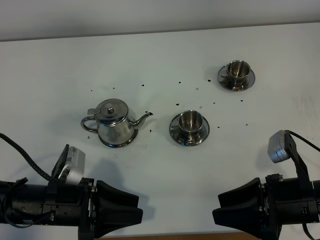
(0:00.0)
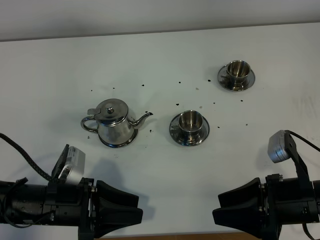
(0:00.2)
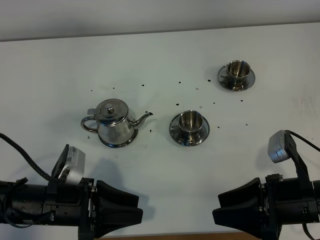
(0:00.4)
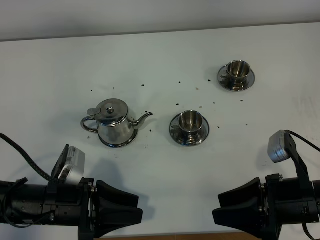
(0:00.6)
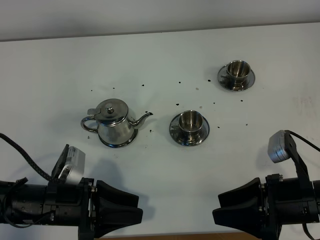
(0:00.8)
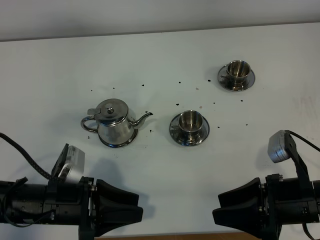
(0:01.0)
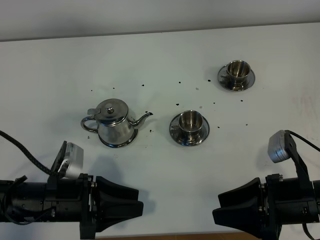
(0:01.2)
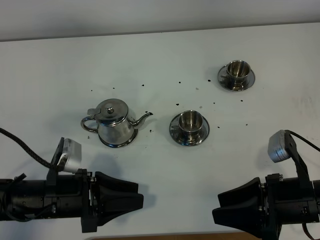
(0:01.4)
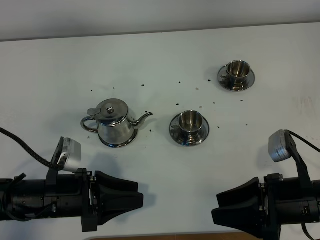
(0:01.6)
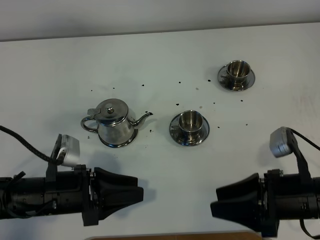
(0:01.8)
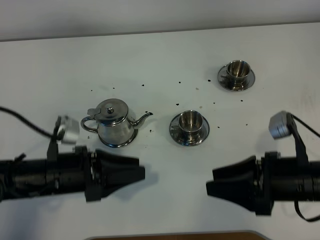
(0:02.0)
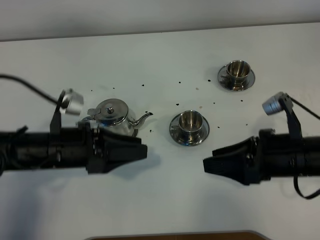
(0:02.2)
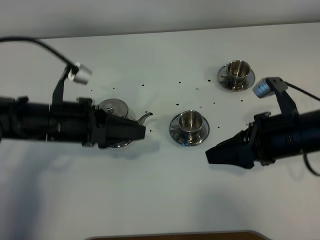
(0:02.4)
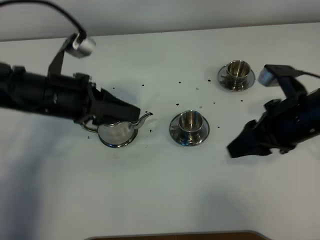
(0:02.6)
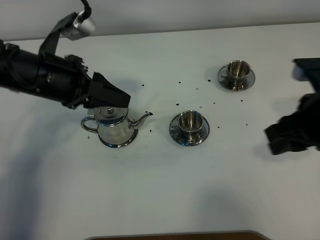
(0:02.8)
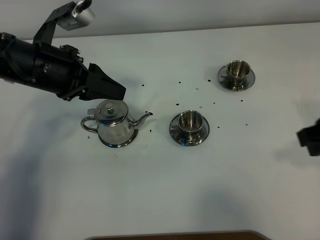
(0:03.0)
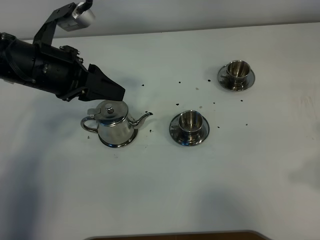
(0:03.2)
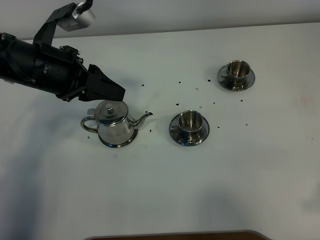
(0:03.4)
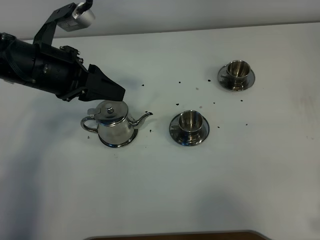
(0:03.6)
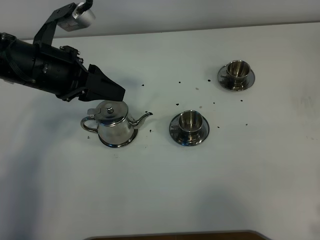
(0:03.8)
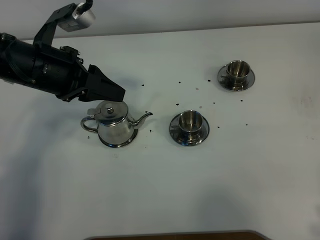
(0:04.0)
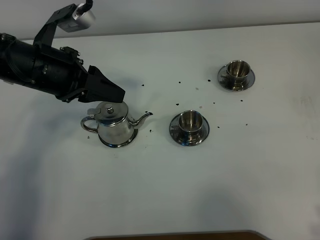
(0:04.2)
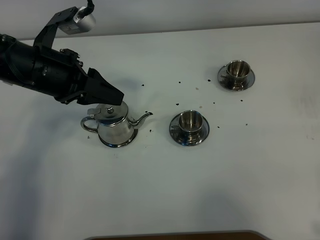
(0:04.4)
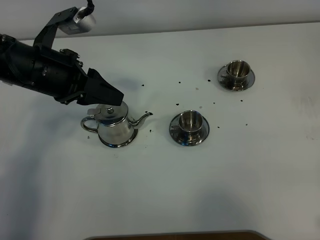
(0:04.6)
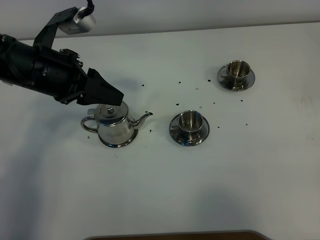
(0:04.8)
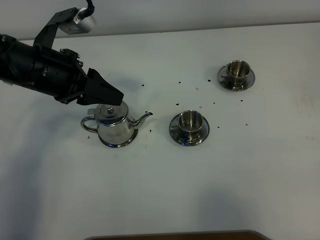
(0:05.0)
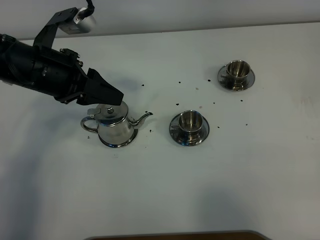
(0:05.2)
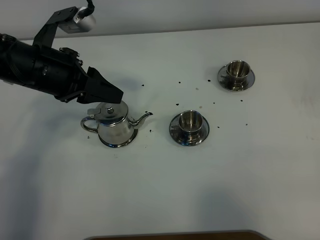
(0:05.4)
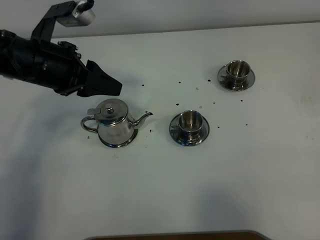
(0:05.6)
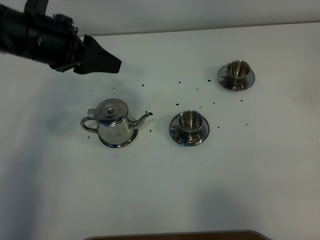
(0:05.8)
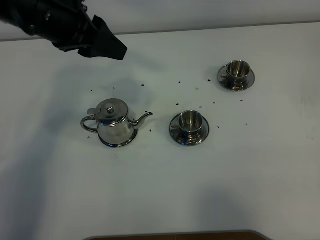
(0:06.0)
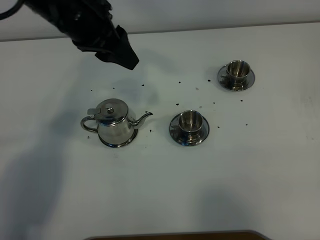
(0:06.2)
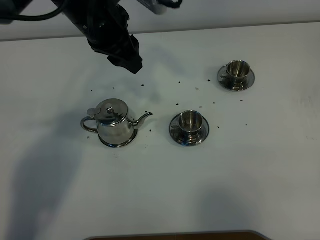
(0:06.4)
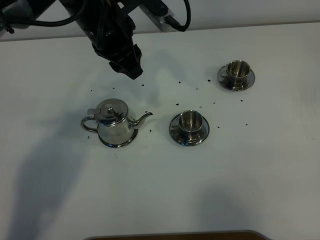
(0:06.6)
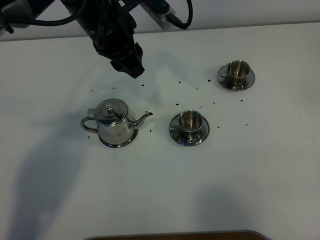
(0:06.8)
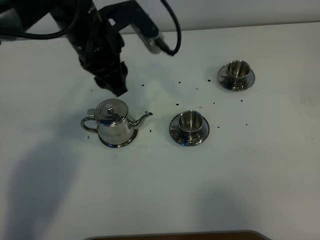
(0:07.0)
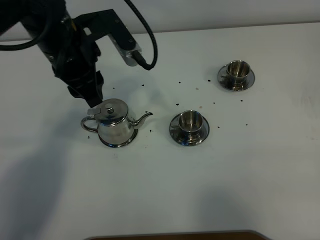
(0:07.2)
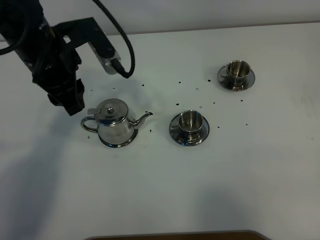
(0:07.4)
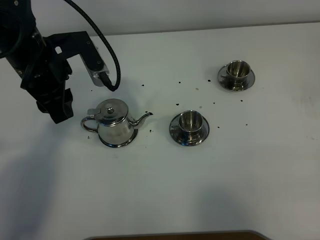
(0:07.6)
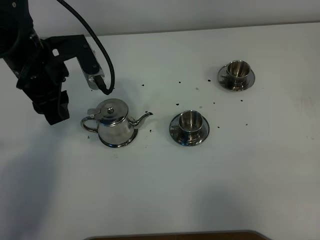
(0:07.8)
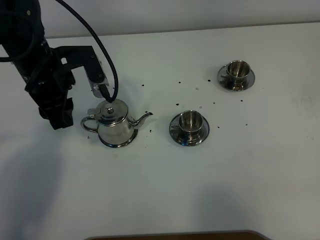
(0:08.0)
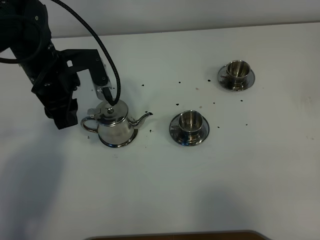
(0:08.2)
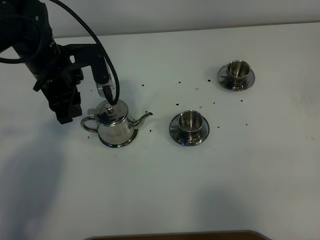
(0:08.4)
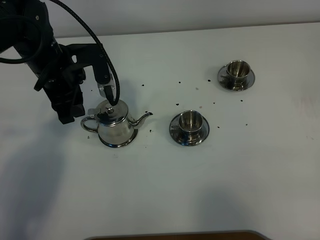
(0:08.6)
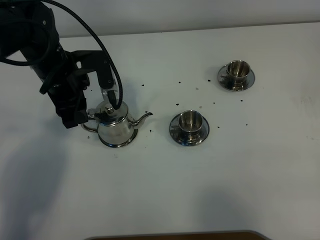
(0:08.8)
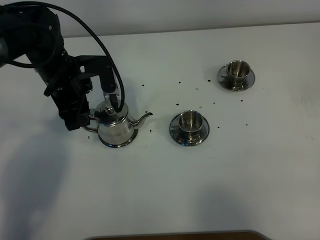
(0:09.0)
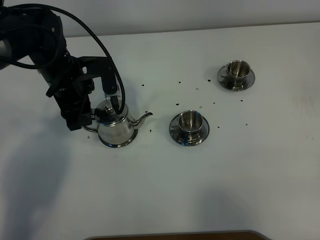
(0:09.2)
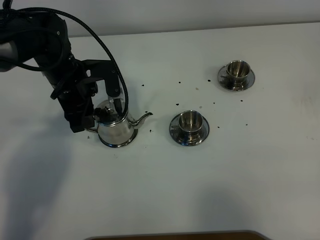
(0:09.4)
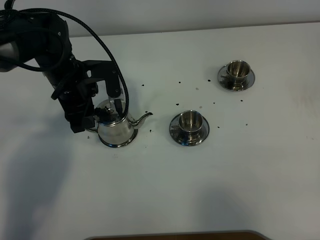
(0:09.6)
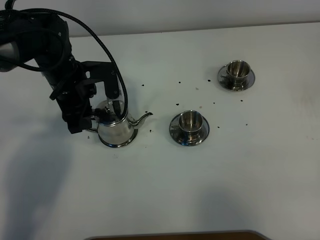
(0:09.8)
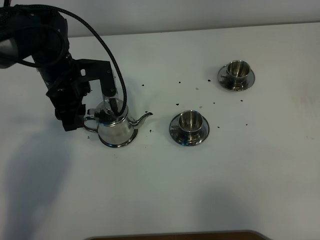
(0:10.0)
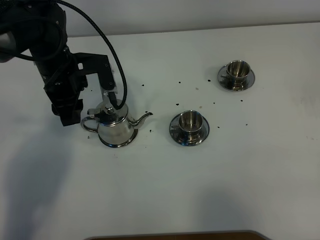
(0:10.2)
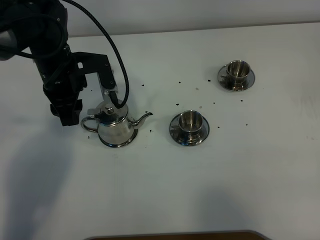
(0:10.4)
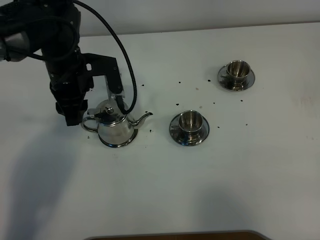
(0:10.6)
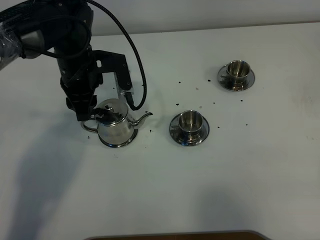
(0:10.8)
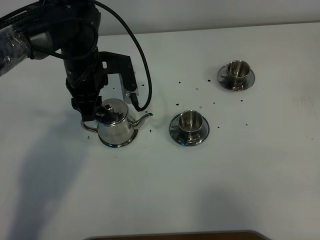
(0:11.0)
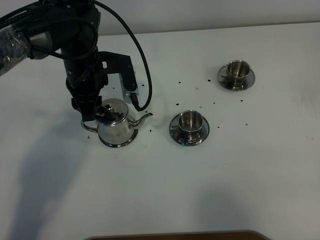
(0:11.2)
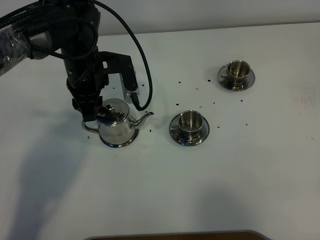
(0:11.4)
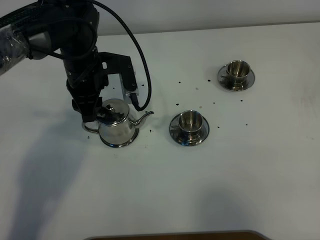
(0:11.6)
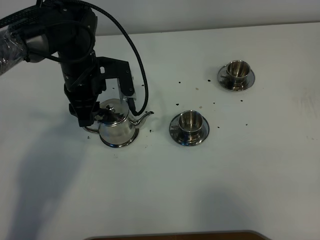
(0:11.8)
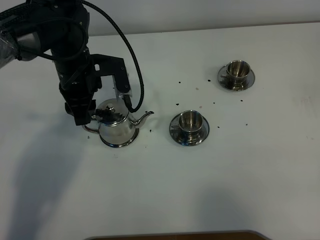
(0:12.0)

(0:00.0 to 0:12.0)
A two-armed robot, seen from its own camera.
Task of the whole recording: grasp the stainless steel teapot and pour the tea into the two stainless steel teacups one by one, put the stainless steel teapot back in its original place.
0:00.0 - 0:01.6: The grippers stay close to where they were, moving slightly.
0:01.6 - 0:03.0: The right gripper goes some 15 cm upward, and closes; the left gripper shifts some 20 cm forward and upward.
0:03.0 - 0:04.4: The right gripper goes roughly 15 cm backward.
0:04.4 - 0:06.0: The right gripper is displaced backward by roughly 5 cm, and closes. Meanwhile the left gripper moves upward, roughly 10 cm.
0:06.0 - 0:07.6: The left gripper shifts roughly 10 cm downward.
0:07.6 - 0:09.0: The left gripper travels downward by approximately 5 cm.
0:09.0 - 0:12.0: The grippers stay close to where they were, moving slightly.

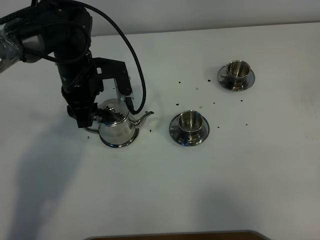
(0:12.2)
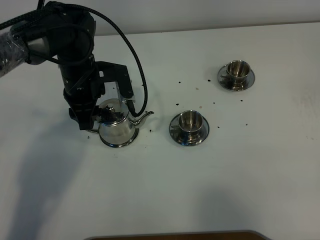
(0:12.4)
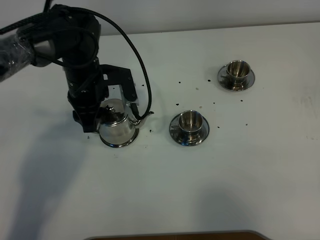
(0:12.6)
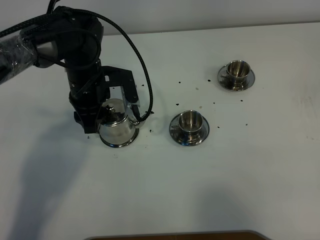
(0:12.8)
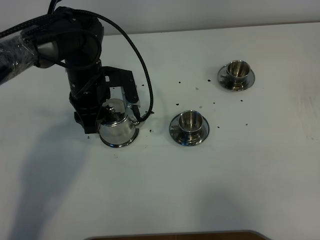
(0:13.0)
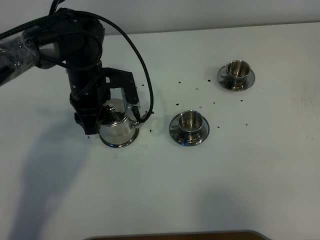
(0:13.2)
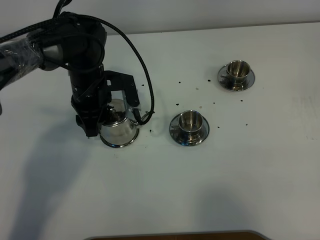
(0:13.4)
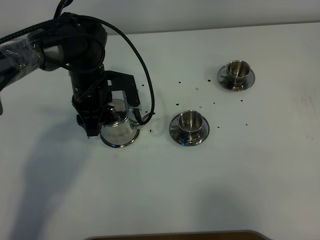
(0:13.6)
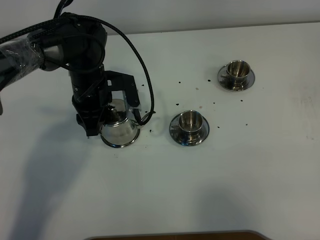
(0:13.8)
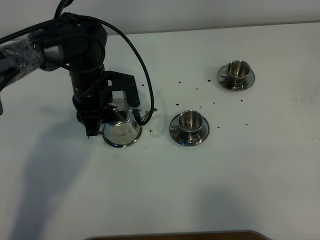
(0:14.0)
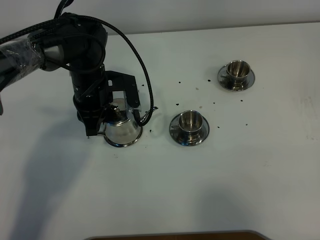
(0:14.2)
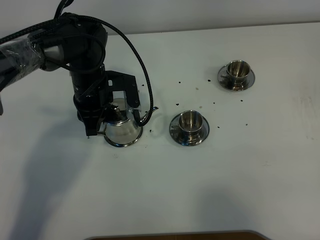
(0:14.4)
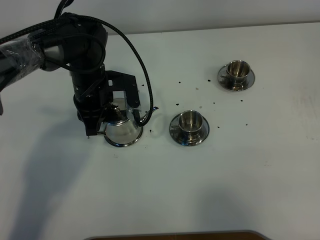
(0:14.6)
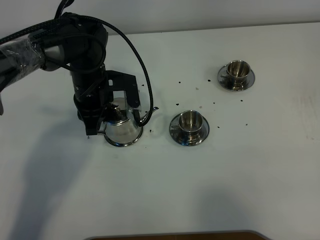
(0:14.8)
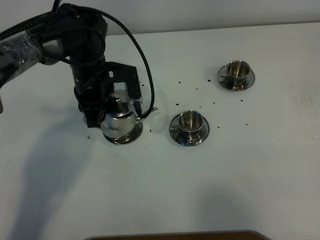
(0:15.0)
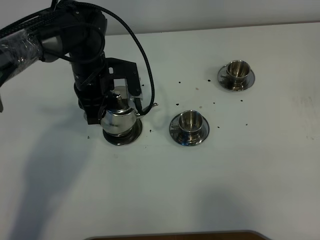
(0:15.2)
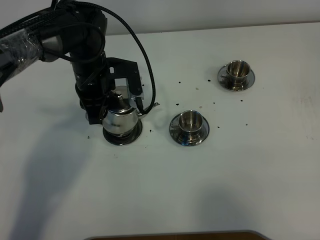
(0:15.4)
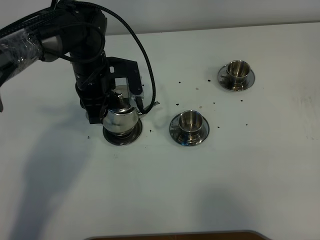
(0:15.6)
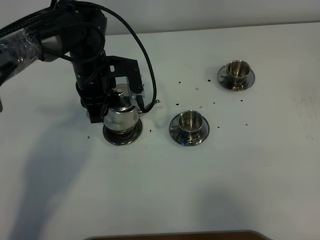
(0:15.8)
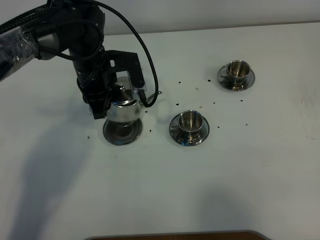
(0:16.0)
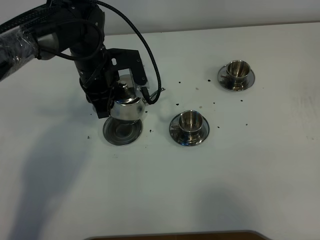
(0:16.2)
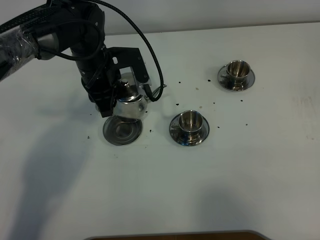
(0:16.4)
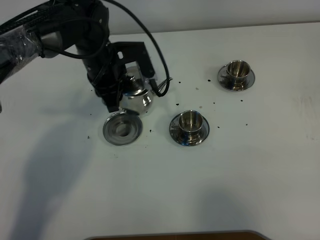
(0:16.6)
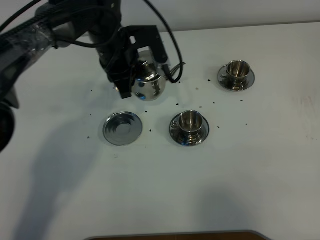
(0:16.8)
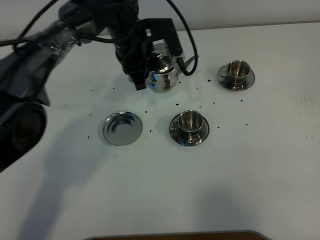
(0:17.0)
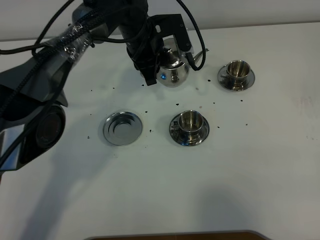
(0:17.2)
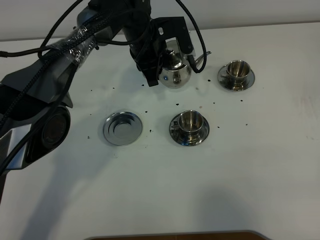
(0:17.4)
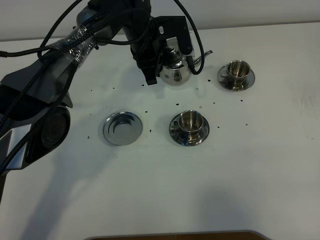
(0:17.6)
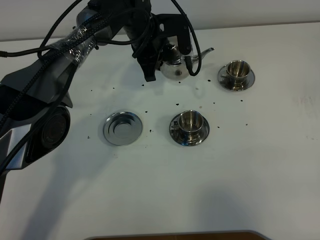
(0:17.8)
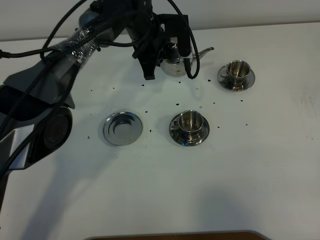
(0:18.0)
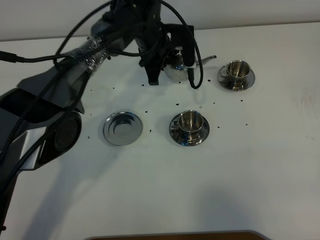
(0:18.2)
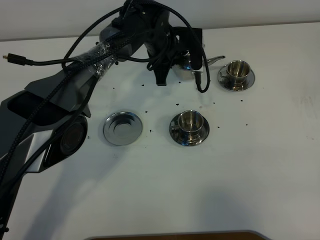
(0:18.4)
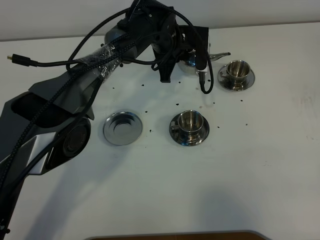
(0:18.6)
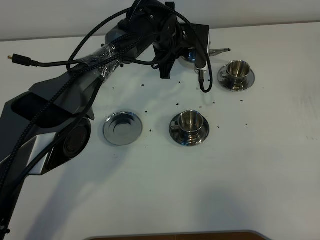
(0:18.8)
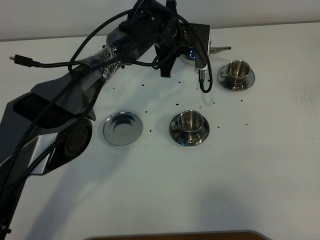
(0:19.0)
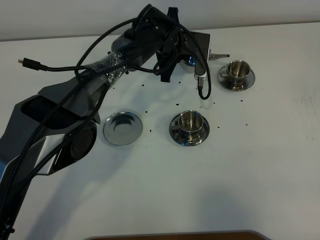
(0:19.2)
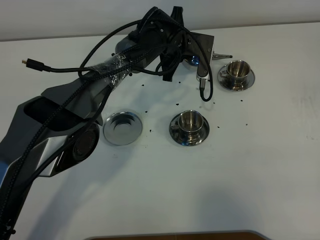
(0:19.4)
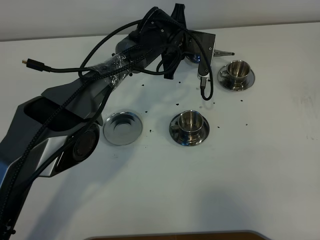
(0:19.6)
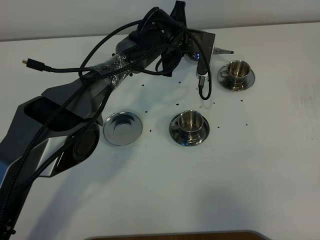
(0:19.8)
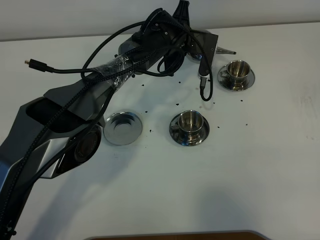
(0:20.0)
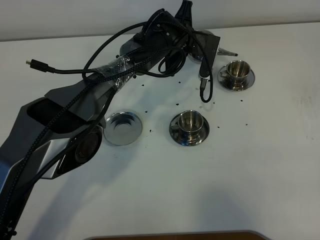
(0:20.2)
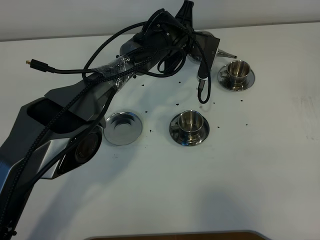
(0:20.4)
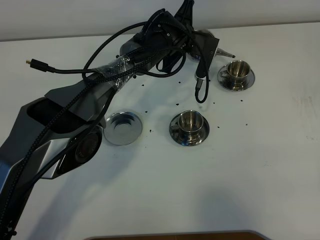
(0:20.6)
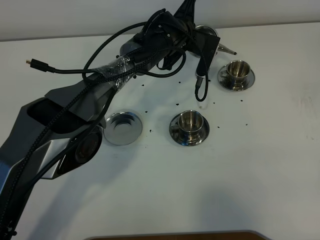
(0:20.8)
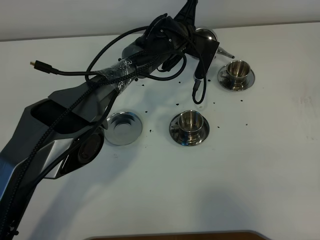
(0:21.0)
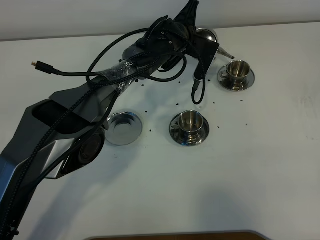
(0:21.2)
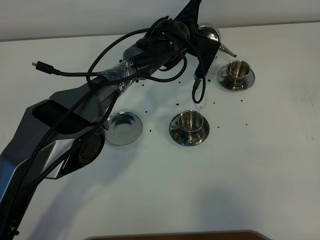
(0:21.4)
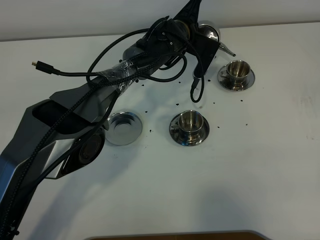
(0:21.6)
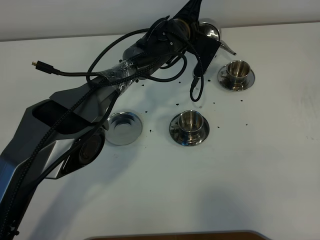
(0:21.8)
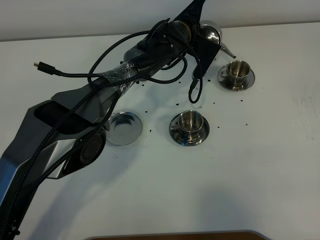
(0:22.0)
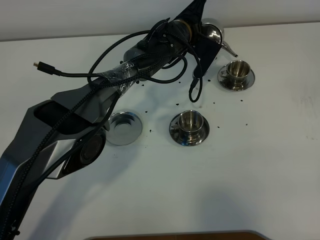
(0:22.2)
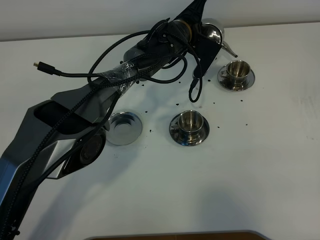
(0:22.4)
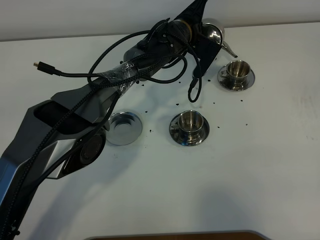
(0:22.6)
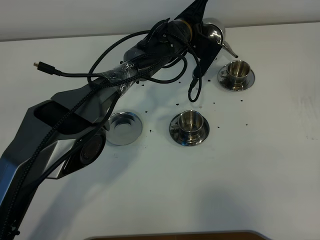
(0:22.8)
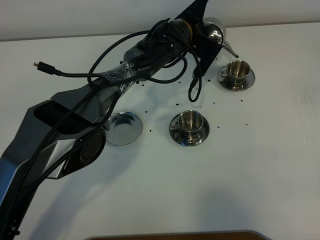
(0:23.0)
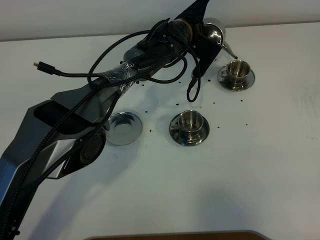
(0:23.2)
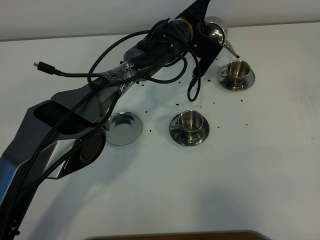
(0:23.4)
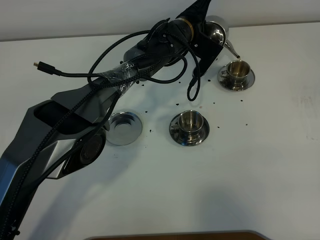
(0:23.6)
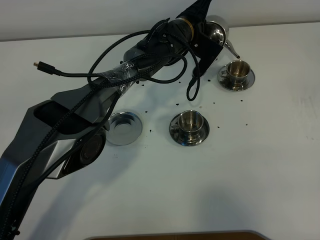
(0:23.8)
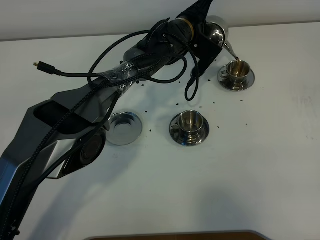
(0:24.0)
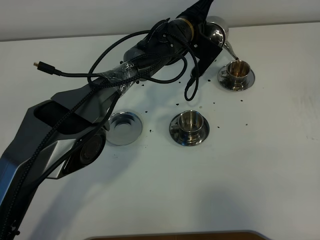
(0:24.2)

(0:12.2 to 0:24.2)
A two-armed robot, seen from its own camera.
Task of the whole recording: grasp the stainless steel teapot and pour the tea into the two stainless steel teacups one by one, put the stainless steel teapot back in its original place.
Step, 0:12.2 - 0:15.4: Pick up the teapot with the left gripper.
0:12.2 - 0:13.8: The grippers make only small movements.
0:13.8 - 0:15.2: The left gripper closes up.
0:15.2 - 0:16.6: The grippers stay close to where they were, moving slightly.
0:16.6 - 0:18.2: The left gripper goes some 10 cm to the right and forward.
0:19.8 - 0:21.2: The grippers stay close to where they were, moving slightly.
0:21.2 - 0:24.2: The grippers stay close to where they were, moving slightly.
